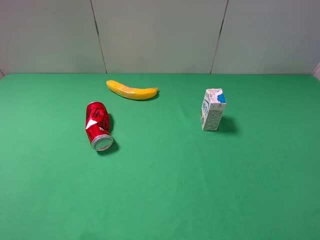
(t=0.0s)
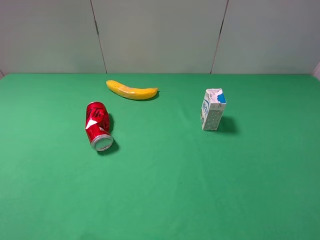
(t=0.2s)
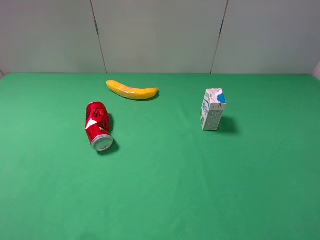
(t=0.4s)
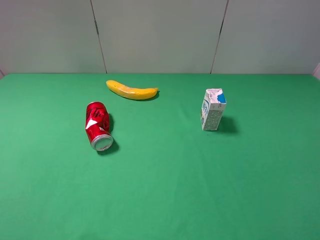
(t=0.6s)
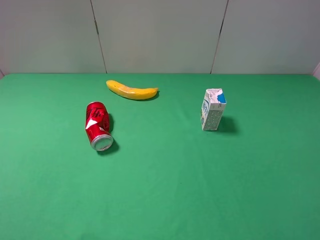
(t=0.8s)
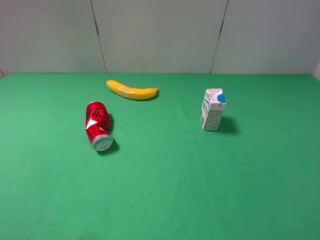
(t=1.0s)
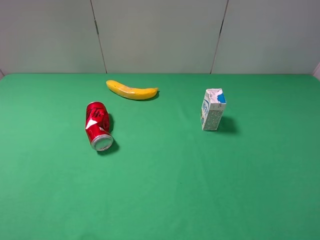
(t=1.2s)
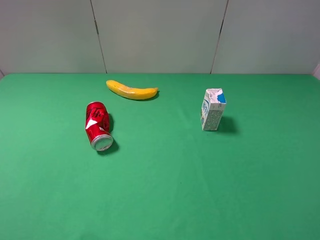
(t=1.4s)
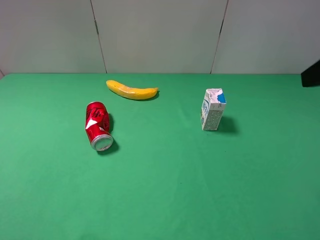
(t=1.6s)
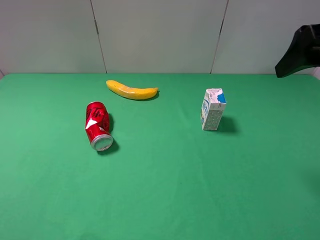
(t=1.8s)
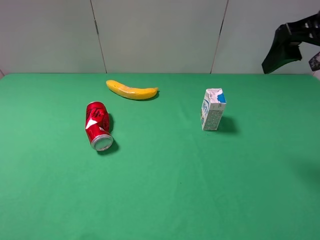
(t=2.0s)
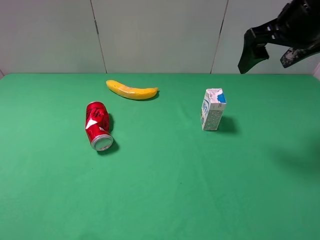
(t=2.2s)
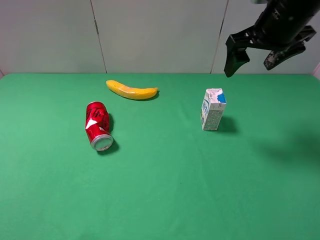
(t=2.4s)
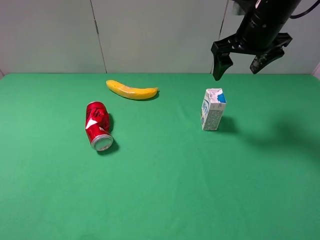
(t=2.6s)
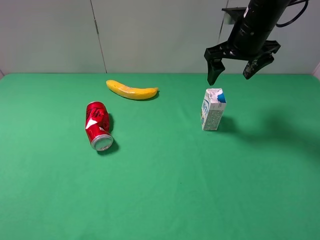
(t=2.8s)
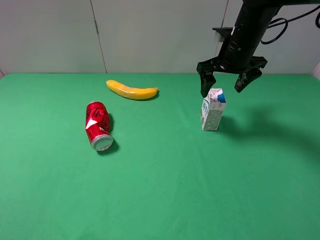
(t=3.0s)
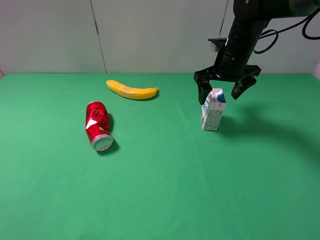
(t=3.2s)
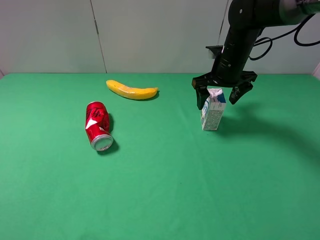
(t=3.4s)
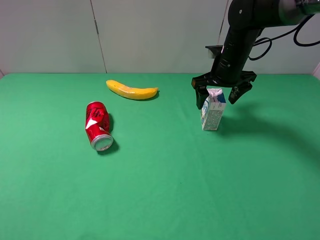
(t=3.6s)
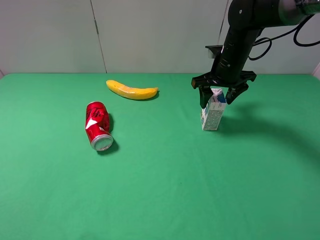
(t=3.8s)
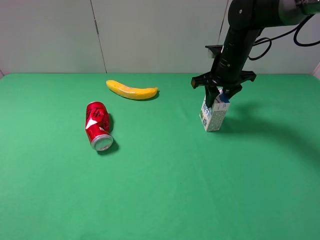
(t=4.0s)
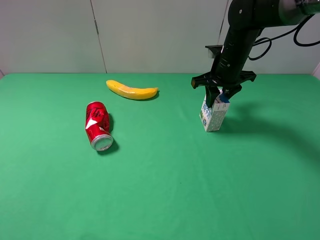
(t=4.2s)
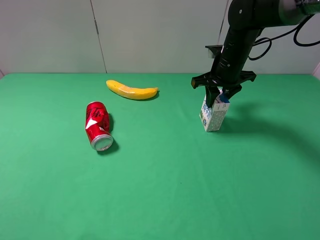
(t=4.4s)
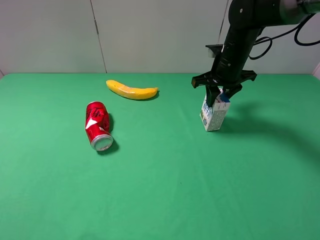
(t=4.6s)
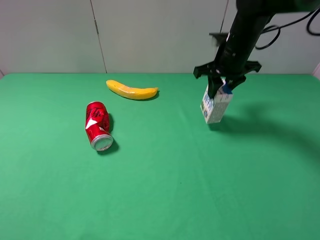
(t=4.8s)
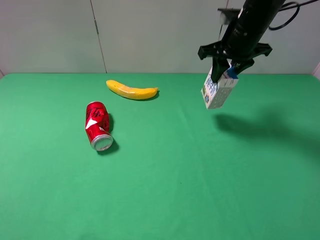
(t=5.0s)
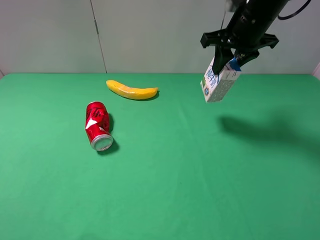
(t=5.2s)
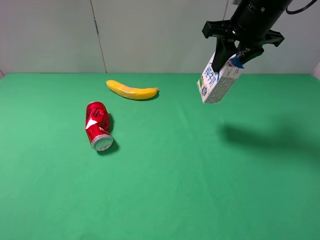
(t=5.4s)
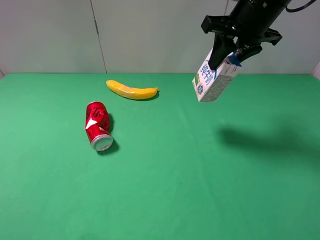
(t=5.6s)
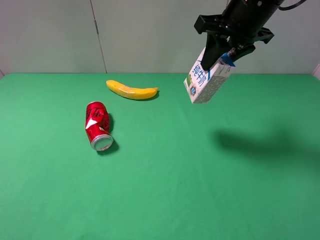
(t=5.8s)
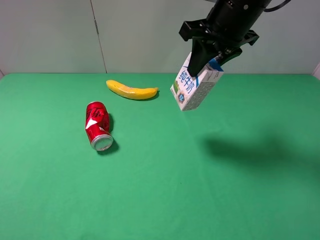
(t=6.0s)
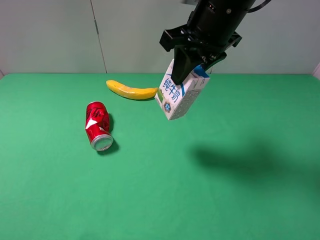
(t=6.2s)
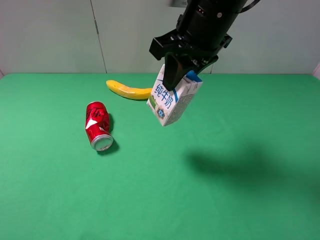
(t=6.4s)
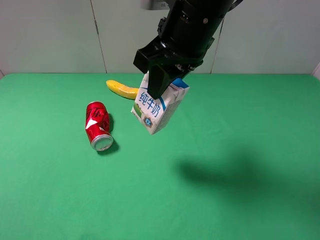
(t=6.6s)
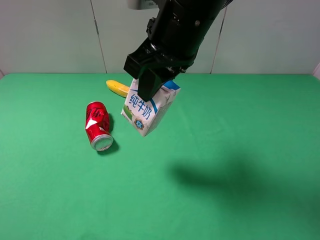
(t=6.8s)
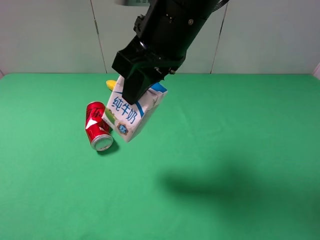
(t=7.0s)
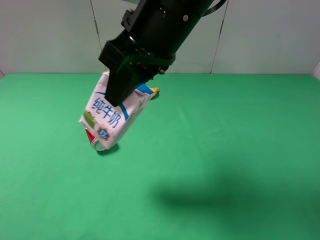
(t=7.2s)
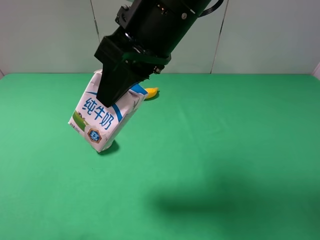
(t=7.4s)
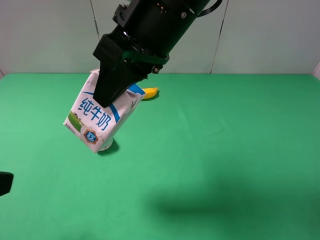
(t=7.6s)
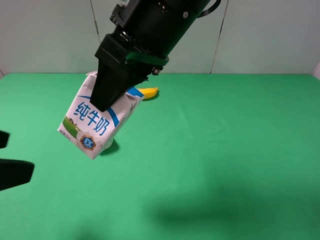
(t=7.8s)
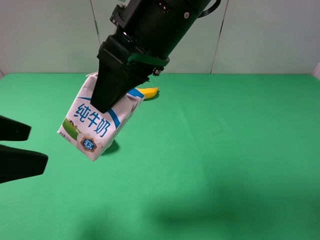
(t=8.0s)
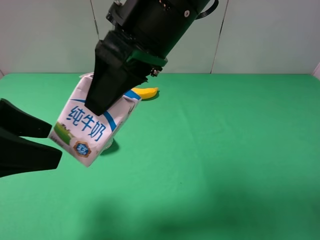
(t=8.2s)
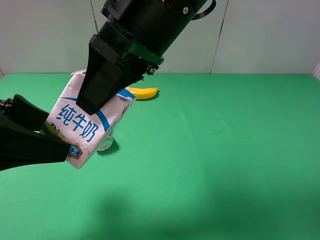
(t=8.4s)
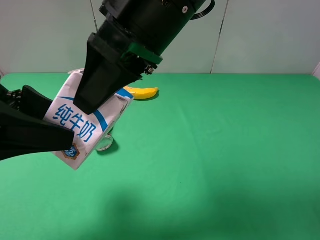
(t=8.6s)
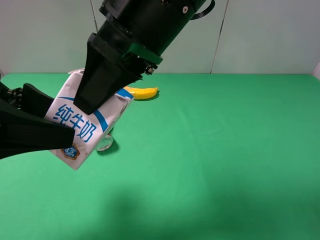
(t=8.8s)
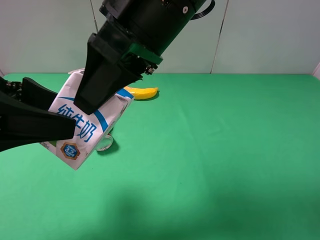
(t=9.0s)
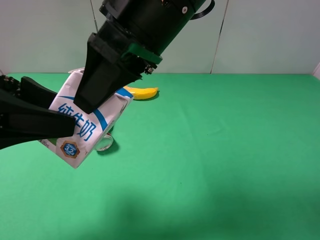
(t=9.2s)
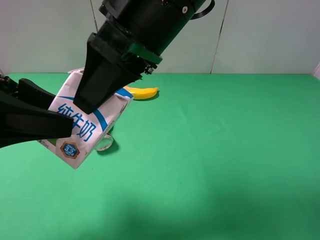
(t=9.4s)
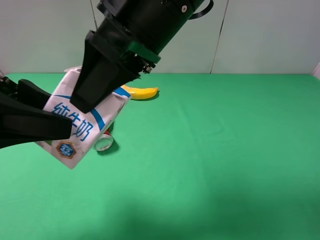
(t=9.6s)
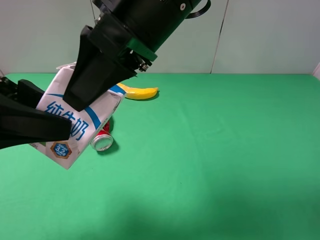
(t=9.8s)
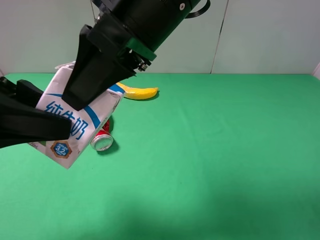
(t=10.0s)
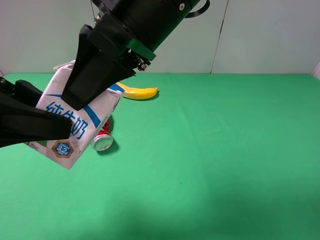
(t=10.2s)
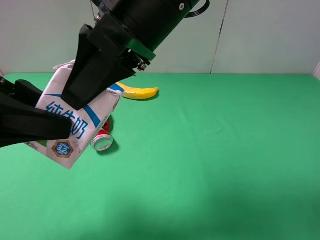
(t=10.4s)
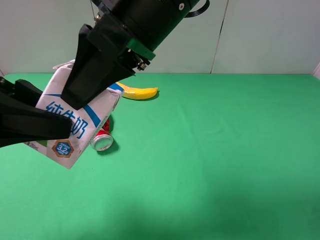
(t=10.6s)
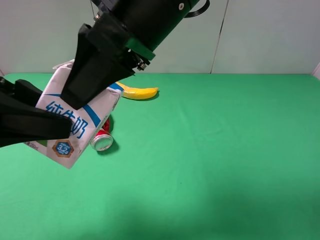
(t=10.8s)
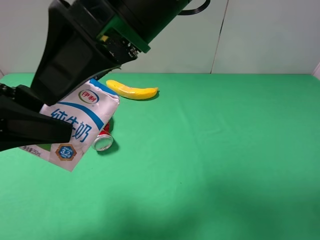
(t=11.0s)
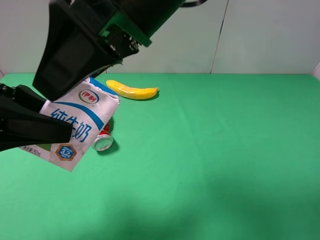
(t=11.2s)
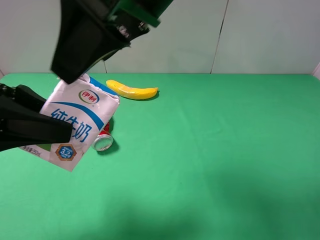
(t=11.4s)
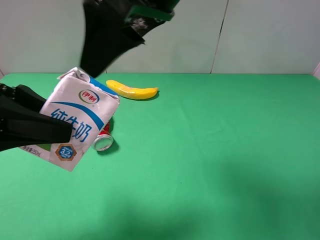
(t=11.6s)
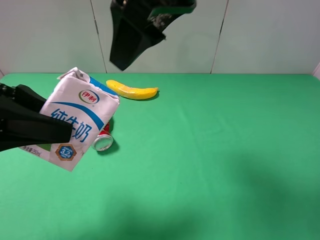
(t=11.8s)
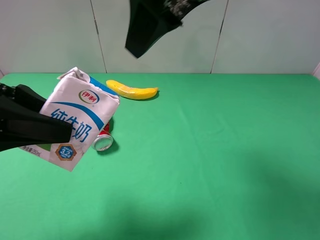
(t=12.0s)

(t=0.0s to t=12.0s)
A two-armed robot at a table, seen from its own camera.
Task of the whole recording: use the right gripper to pick up the item and transfer it from the right gripper to the left gripper.
Step, t=4.2s - t=11.0s: Pass the milk to the left gripper.
t=1.6s - t=3.0s: The right gripper shifts roughly 30 cm forward, downward and to the left.
t=3.0s - t=4.4s: The right gripper closes its fingers.
t=4.4s - t=6.0s: The right gripper shifts some 15 cm upward and backward.
t=6.0s - t=7.6s: The right gripper heads to the left and backward, covering some 15 cm. The left gripper shifts some 5 cm forward.
t=7.6s - t=9.0s: The left gripper moves forward, some 10 cm.
t=9.0s - t=10.4s: The left gripper closes.
t=10.4s - t=12.0s: The right gripper goes roughly 10 cm to the right and upward, and opens.

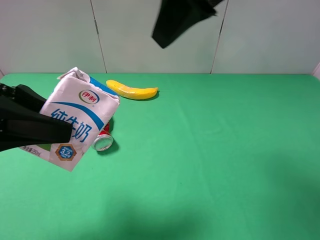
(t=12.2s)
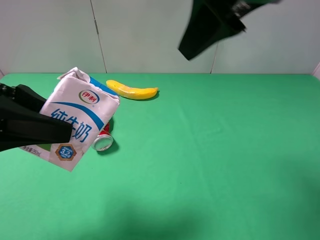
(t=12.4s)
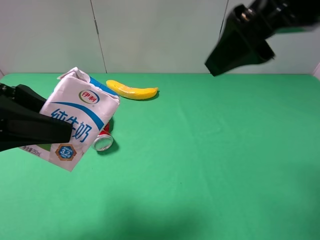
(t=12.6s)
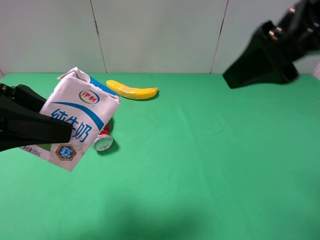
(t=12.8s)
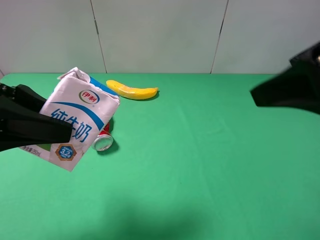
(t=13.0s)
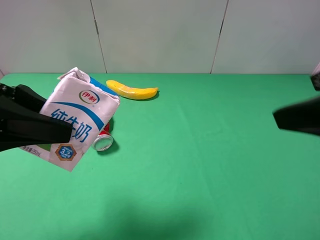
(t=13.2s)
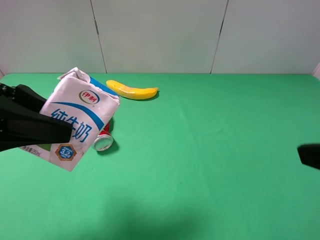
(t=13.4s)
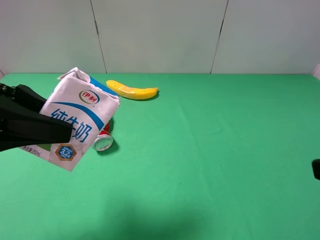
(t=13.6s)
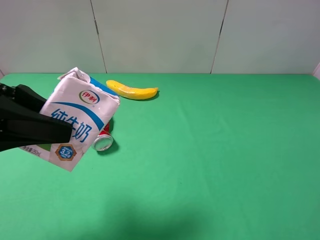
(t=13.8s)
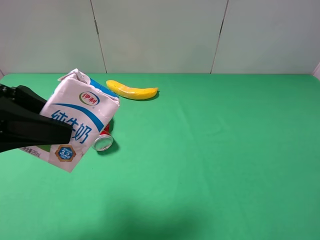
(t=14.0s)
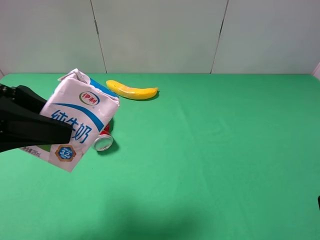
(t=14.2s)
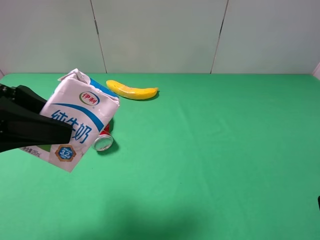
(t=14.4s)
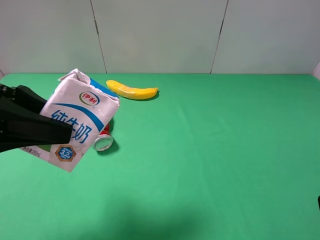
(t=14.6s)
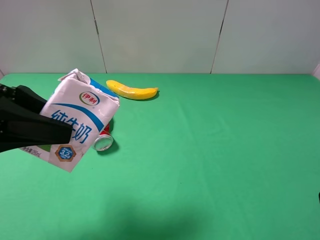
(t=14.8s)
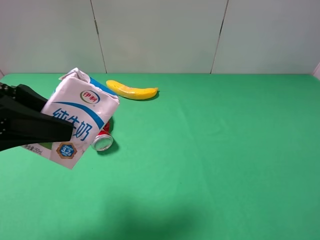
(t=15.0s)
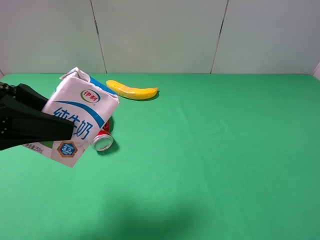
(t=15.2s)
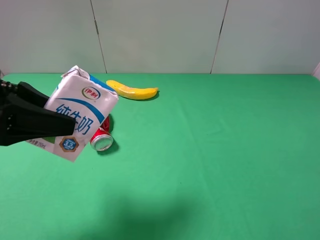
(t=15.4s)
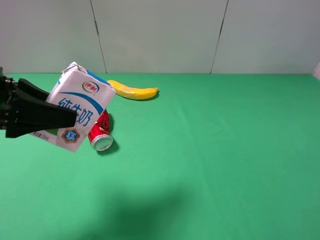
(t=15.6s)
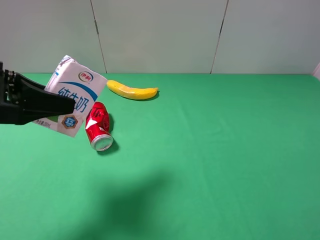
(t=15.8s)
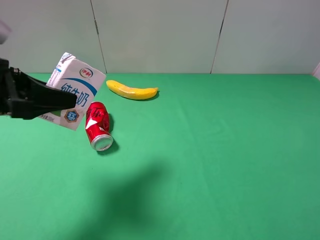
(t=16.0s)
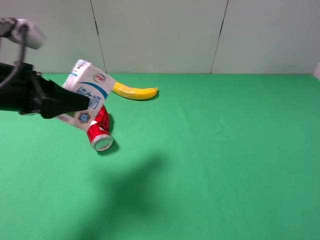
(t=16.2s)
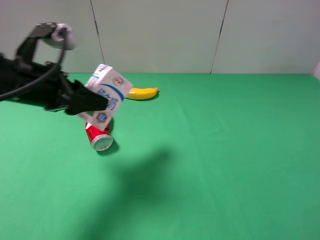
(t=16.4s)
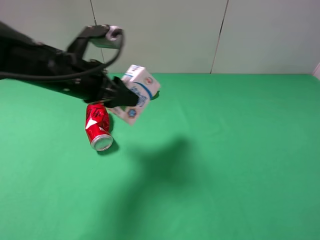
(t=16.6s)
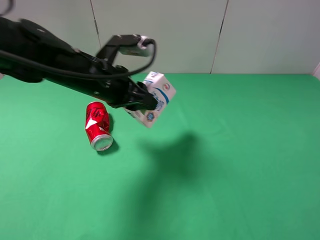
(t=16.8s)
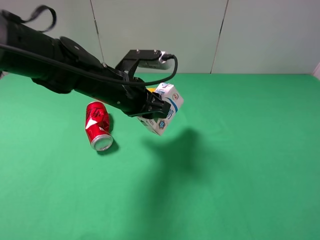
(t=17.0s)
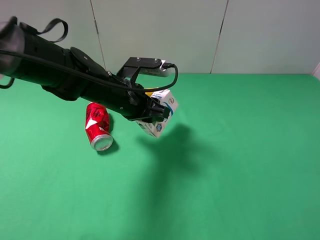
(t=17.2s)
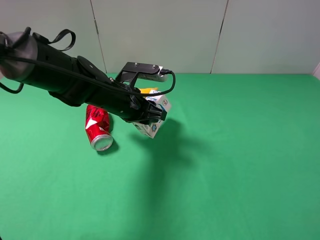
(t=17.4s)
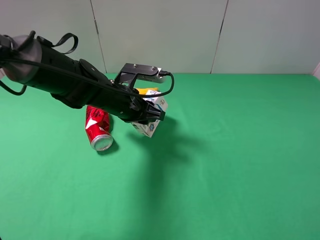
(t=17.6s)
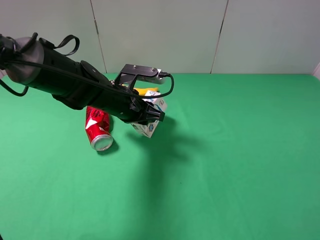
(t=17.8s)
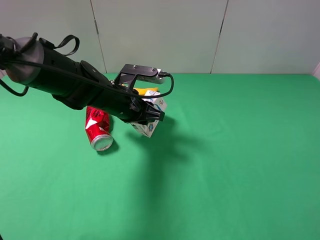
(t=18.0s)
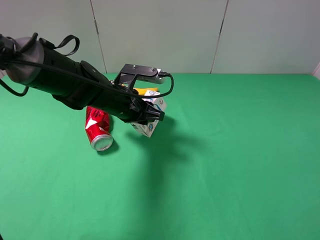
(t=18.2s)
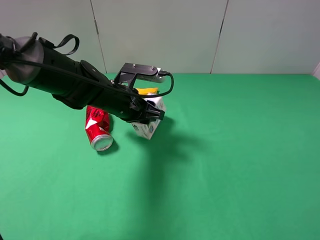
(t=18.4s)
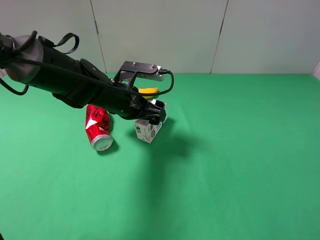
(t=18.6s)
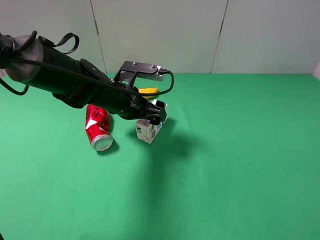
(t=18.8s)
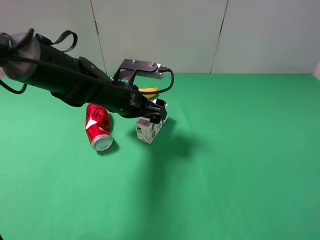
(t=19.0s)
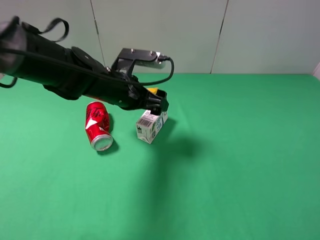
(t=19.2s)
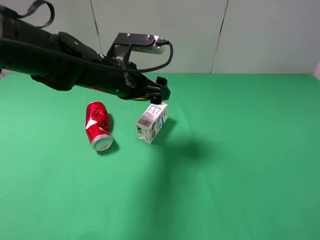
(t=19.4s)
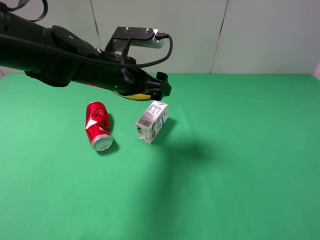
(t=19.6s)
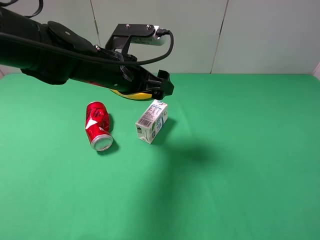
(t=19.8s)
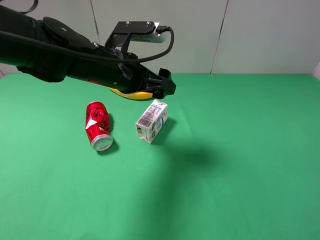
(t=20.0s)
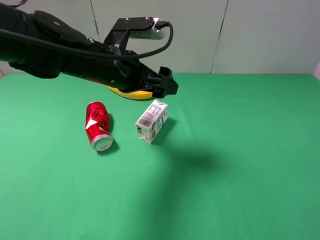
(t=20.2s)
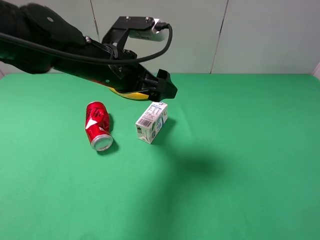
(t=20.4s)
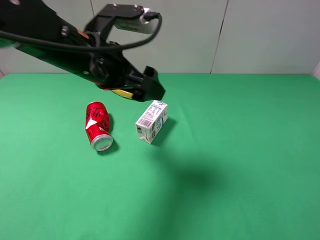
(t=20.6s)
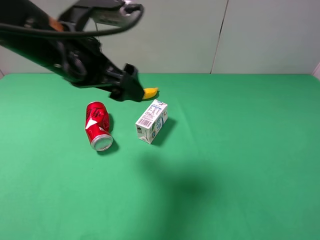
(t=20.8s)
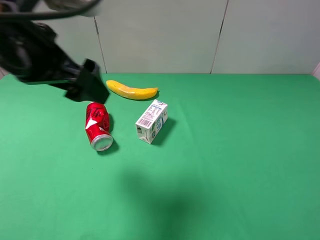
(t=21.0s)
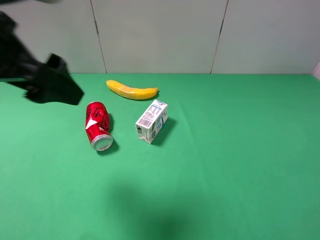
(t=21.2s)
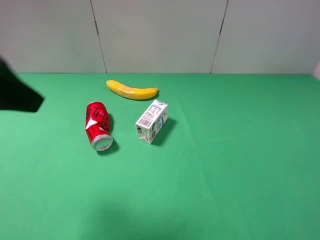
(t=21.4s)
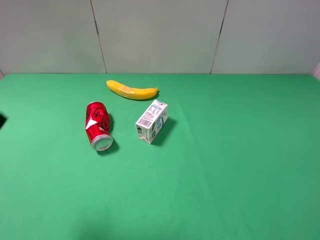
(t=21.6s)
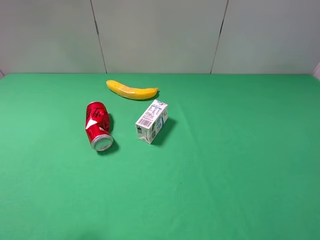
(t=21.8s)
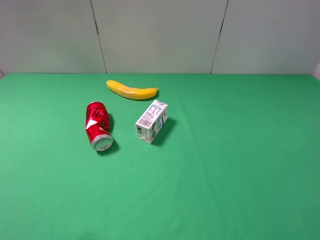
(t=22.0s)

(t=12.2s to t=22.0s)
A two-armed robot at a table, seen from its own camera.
Task of the whole recording: use the right gripper to pick up the item and transfer it from the right gripper to the left gripper.
t=12.2s - t=13.6s: The right gripper travels backward, to the right and downward by some 25 cm.
t=15.0s - t=16.4s: The left gripper moves forward, about 10 cm.
t=16.4s - t=17.8s: The left gripper heads to the right, downward and forward, covering some 15 cm.
t=17.8s - t=19.2s: The left gripper opens up.
t=19.2s - t=20.6s: The left gripper travels upward and backward by some 10 cm.
t=20.6s - t=22.0s: The left gripper heads backward and to the left, covering about 25 cm.
